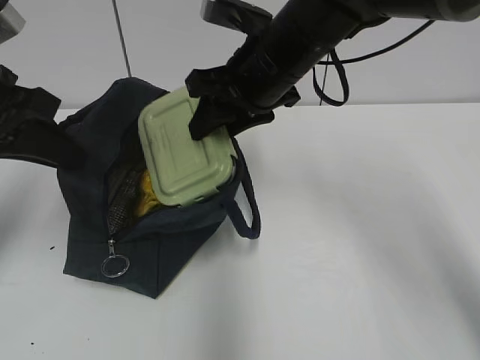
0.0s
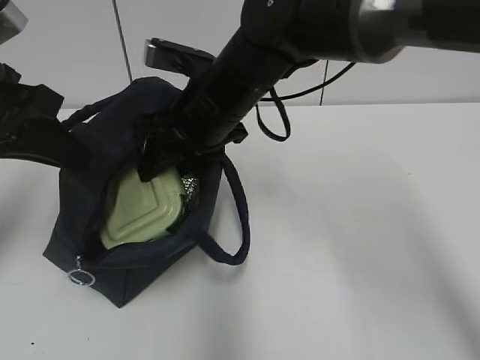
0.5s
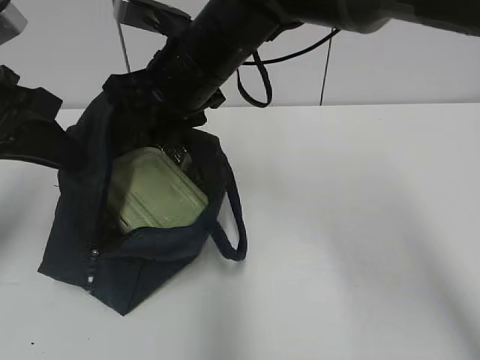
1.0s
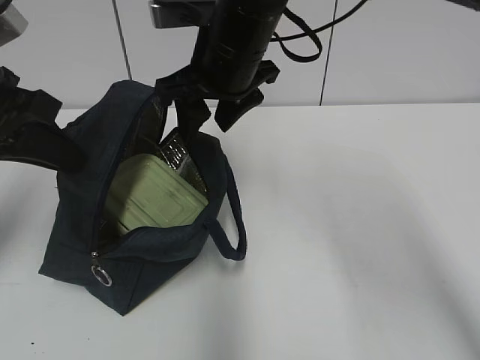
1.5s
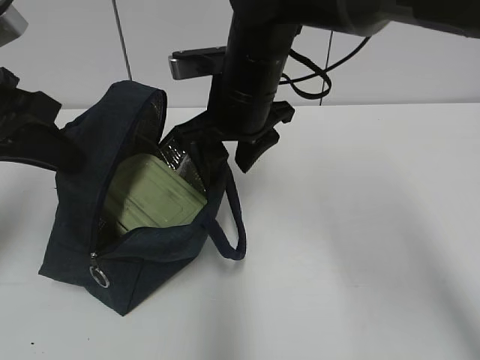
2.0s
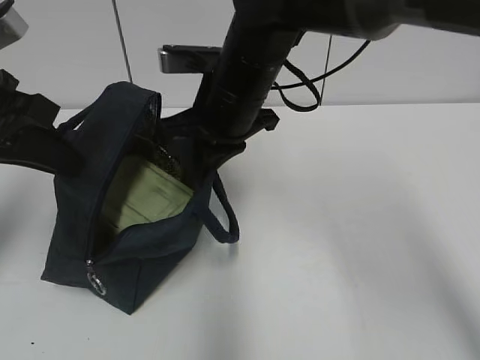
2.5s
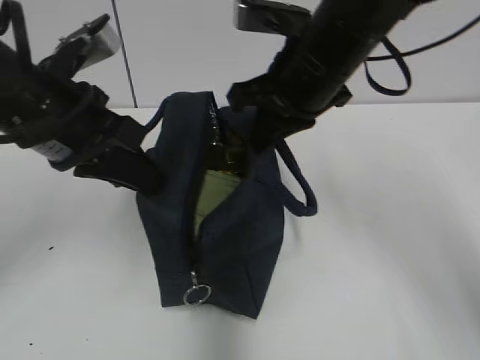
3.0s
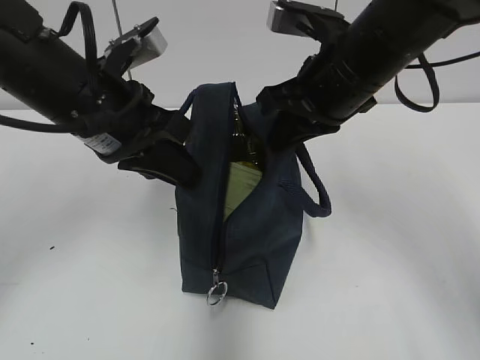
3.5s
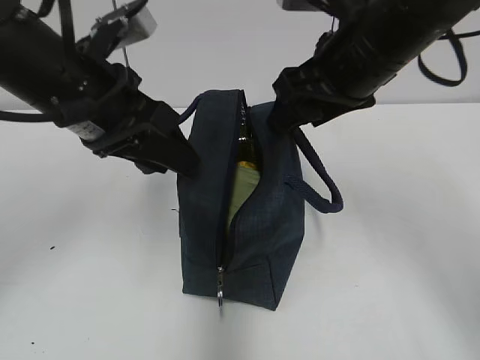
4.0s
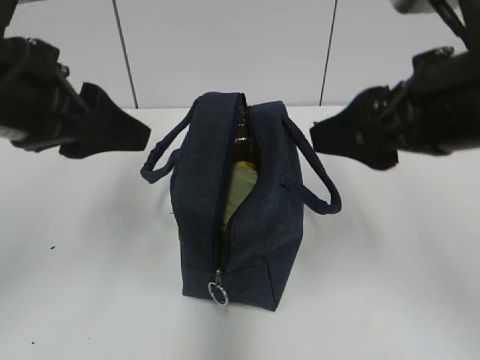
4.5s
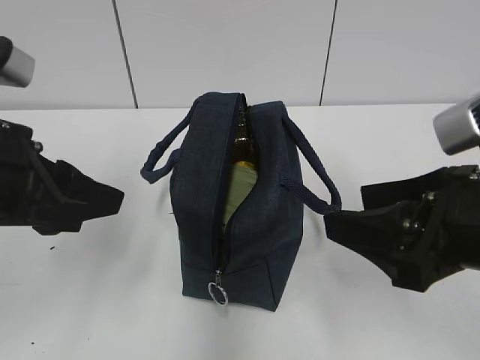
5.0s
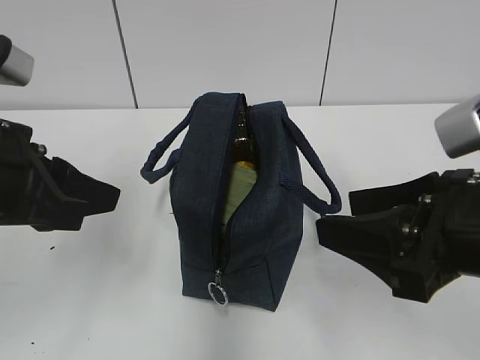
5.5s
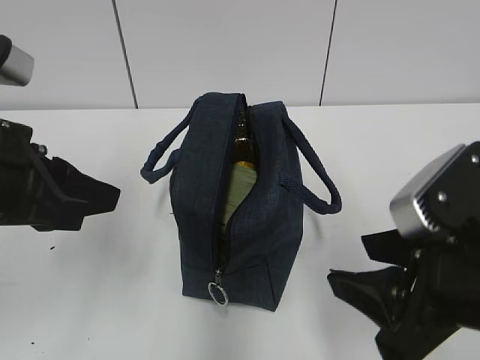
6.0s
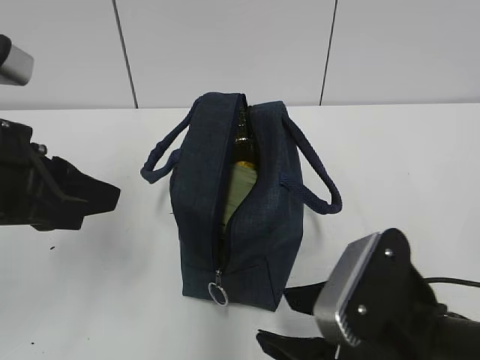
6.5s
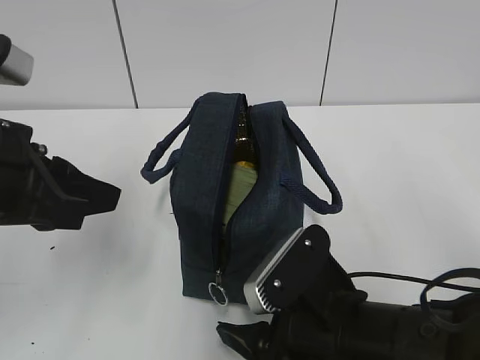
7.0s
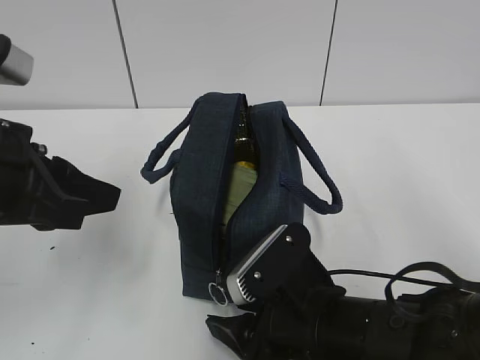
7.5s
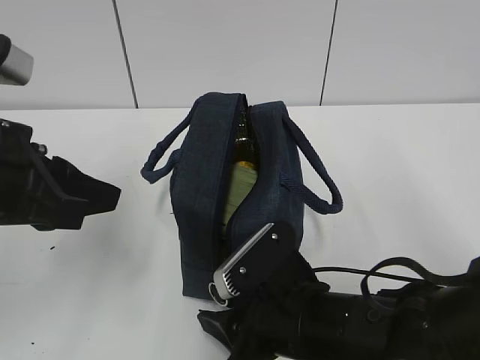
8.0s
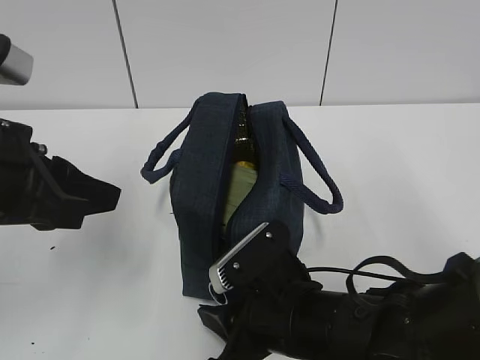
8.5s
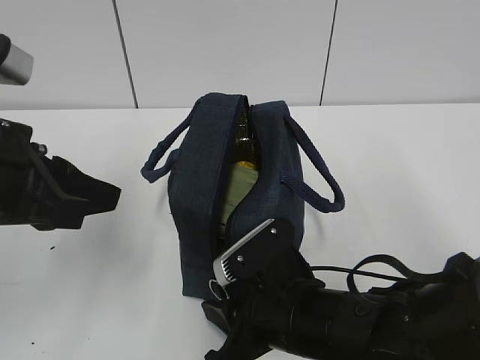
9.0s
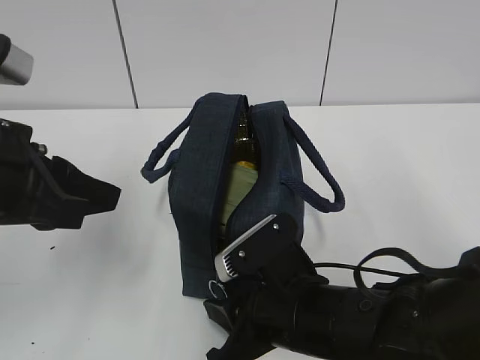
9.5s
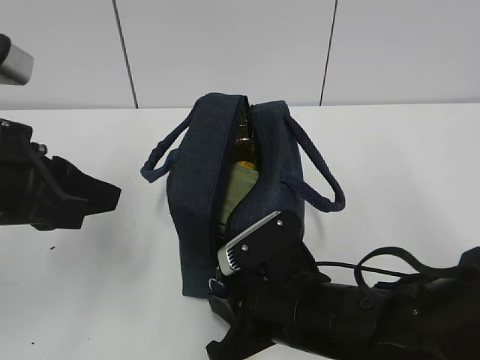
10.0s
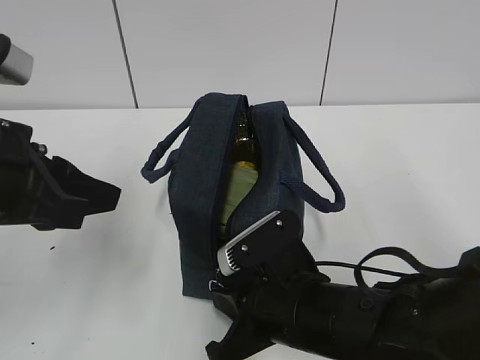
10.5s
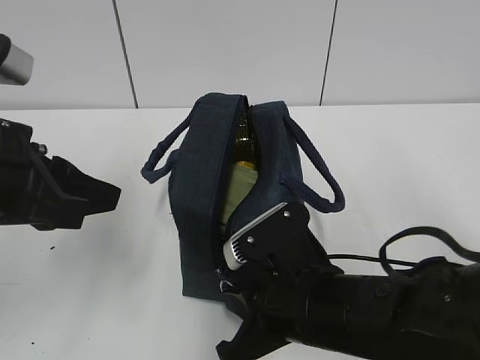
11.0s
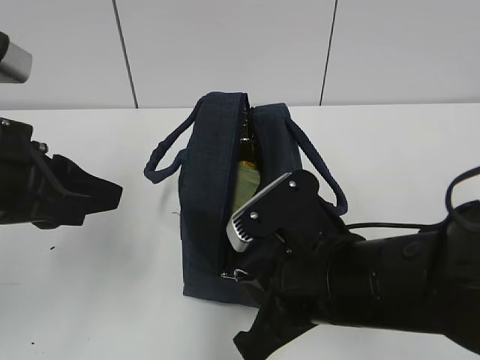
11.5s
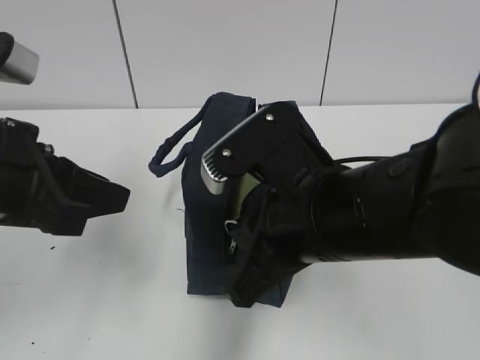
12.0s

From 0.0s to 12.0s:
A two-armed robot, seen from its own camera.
From 2.0s to 4.0s: The left gripper shifts approximately 10 cm to the right, and opens its fingers. Meanwhile the right gripper heads to the right, upward and backward, covering about 15 cm, and closes and opens again.
From 4.0s to 6.0s: The left gripper heads backward and to the left, covering approximately 10 cm. Meanwhile the right gripper moves backward and downward, roughly 20 cm.
From 6.0s to 8.0s: The right gripper goes some 15 cm downward and to the left.
From 8.0s to 10.0s: The grippers stay close to where they were, moving slightly.
From 10.0s to 12.0s: The right gripper heads upward, covering some 10 cm.

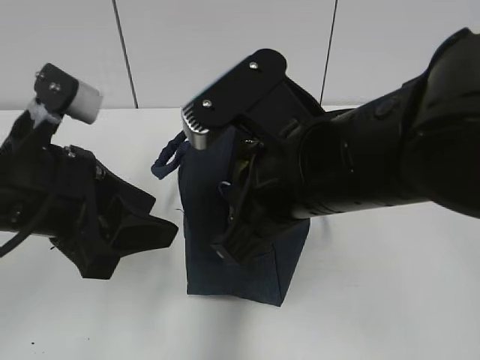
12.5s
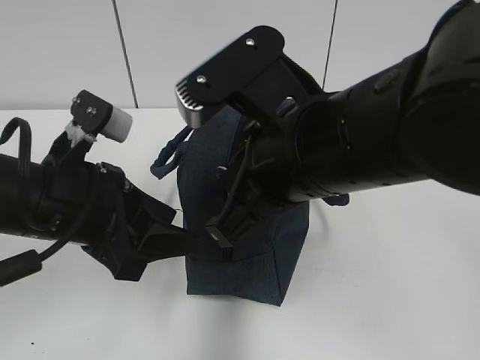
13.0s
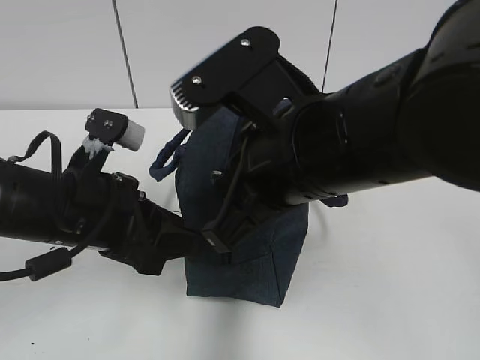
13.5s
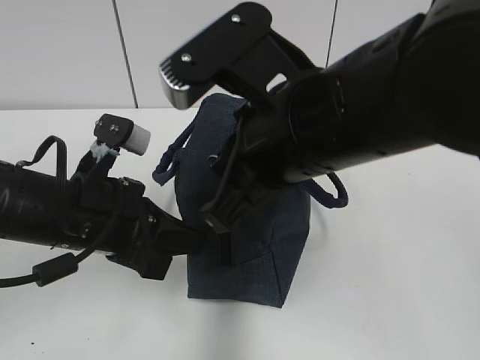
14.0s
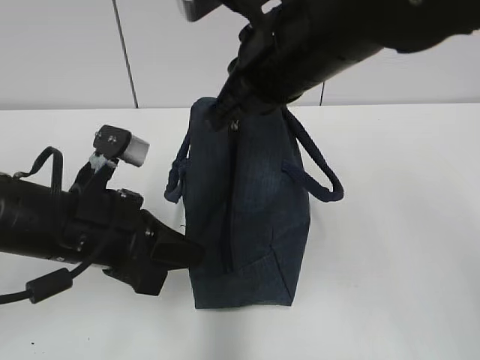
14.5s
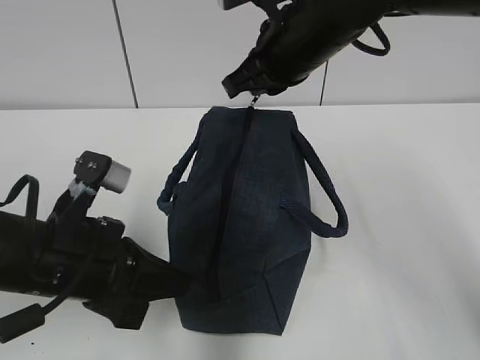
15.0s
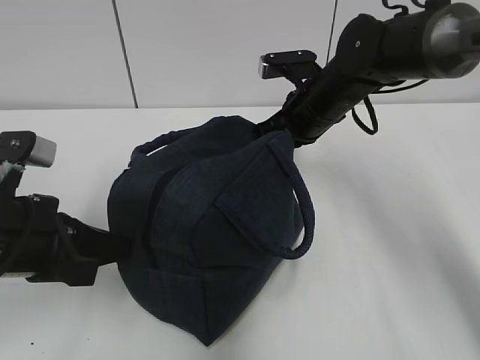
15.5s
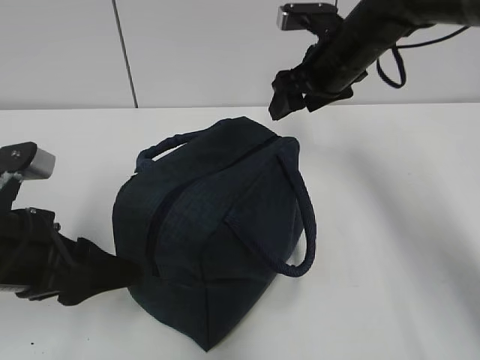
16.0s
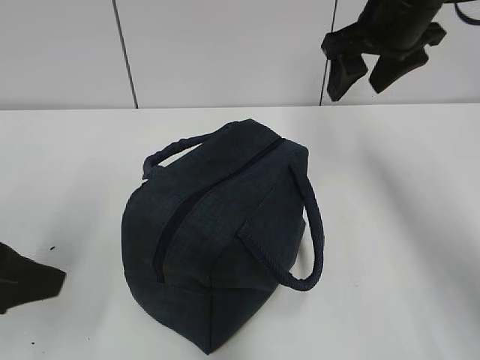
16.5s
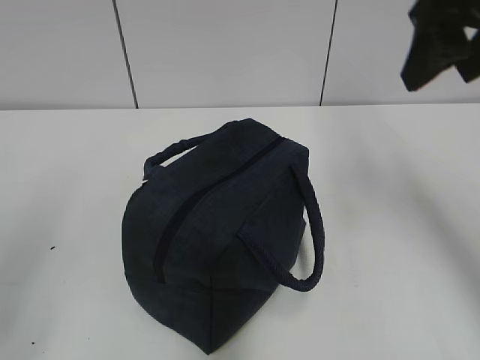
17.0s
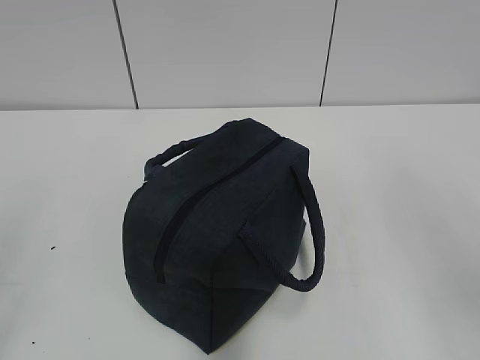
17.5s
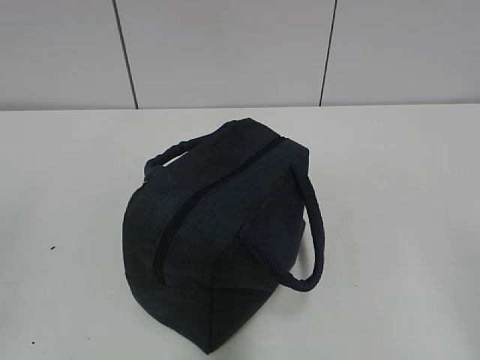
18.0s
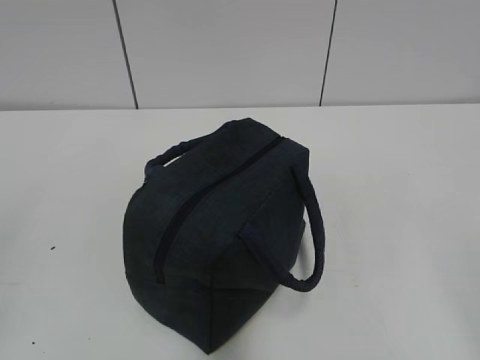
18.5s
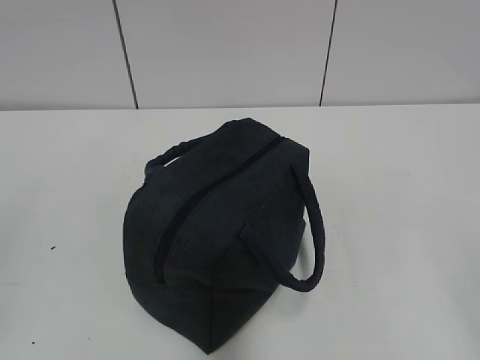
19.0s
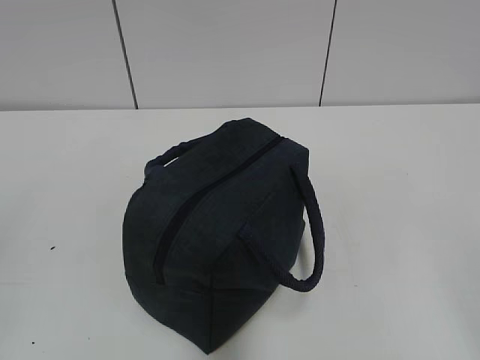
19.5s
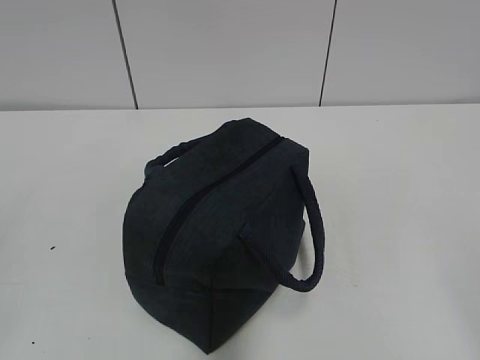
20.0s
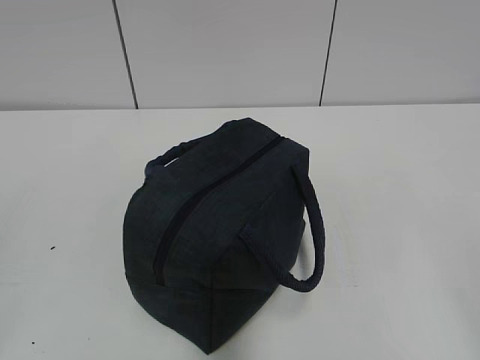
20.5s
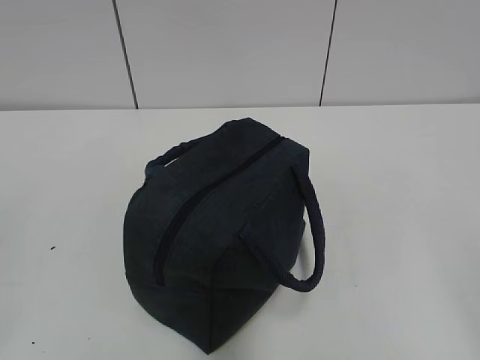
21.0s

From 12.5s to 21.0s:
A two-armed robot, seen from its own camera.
From 12.5s to 14.5s: The right gripper moves forward and upward, approximately 10 cm, while the left gripper is displaced downward by approximately 5 cm, and closes.
From 14.5s to 16.5s: The right gripper shifts about 15 cm to the right and forward, and opens up. The left gripper is displaced to the left, backward and upward by approximately 15 cm, and opens its fingers.
From 16.5s to 19.0s: The left gripper heads backward and to the left, covering approximately 15 cm; the right gripper moves backward, some 40 cm.
